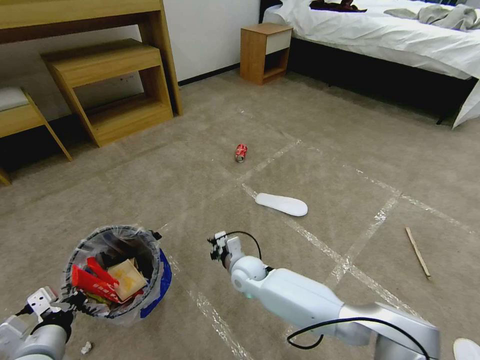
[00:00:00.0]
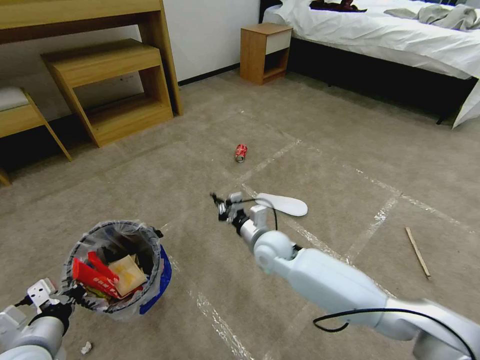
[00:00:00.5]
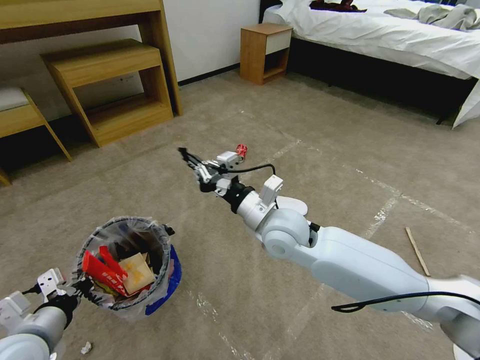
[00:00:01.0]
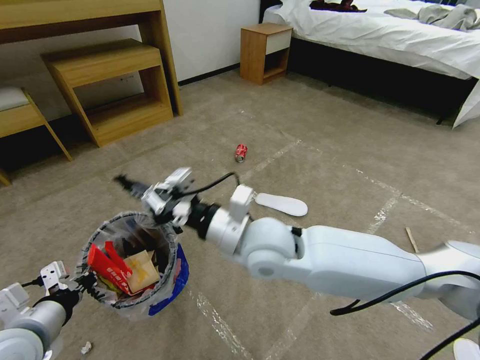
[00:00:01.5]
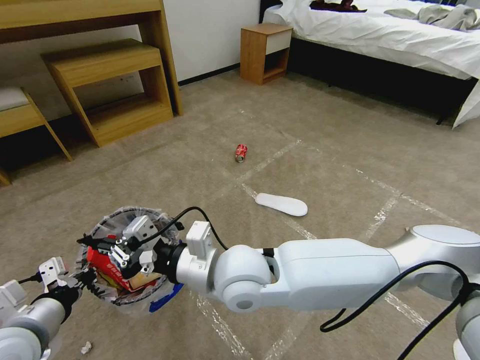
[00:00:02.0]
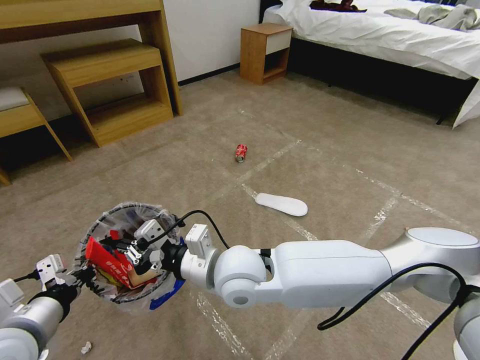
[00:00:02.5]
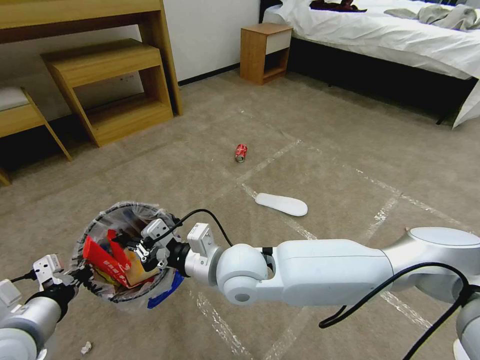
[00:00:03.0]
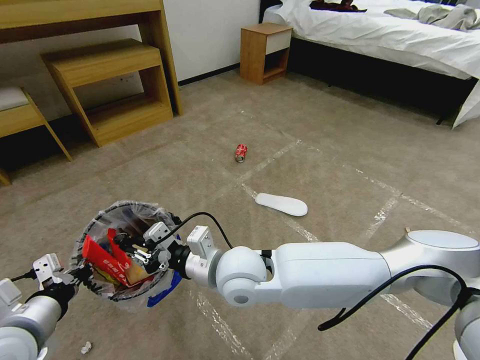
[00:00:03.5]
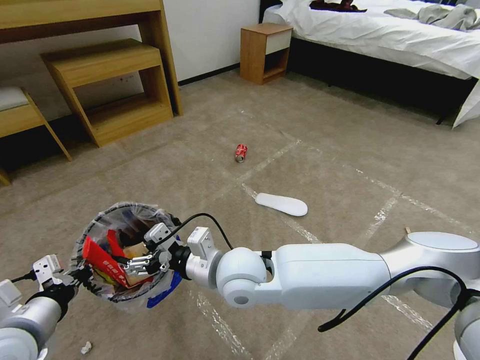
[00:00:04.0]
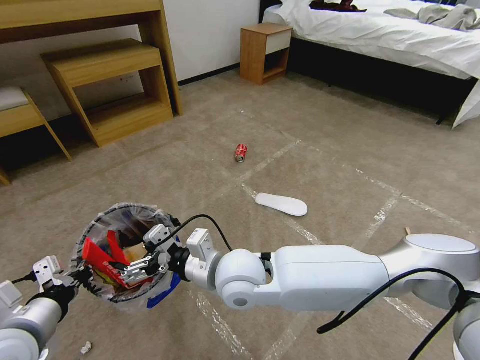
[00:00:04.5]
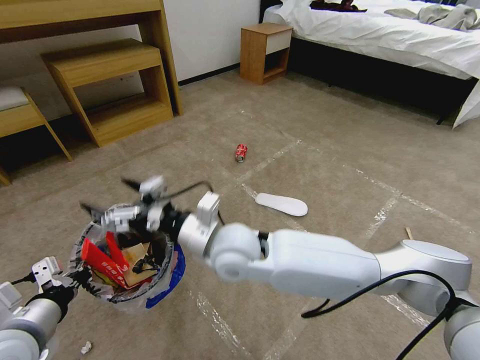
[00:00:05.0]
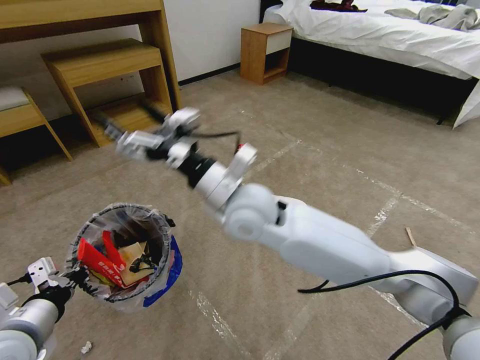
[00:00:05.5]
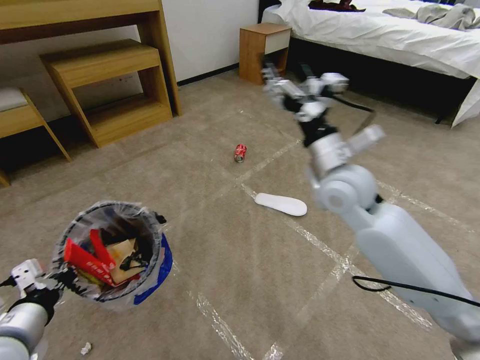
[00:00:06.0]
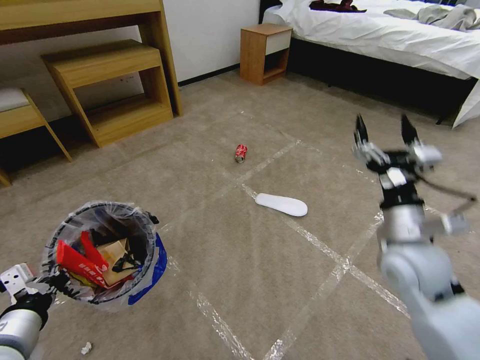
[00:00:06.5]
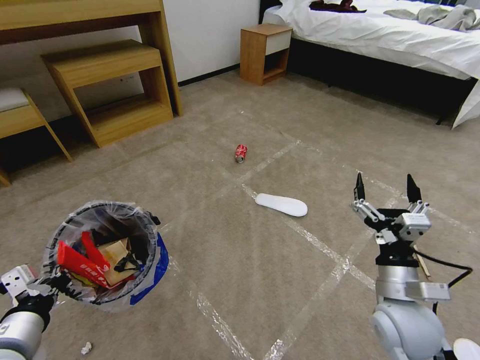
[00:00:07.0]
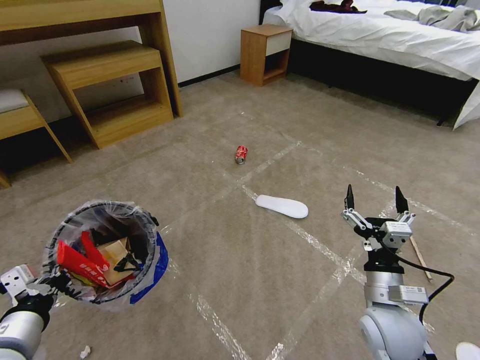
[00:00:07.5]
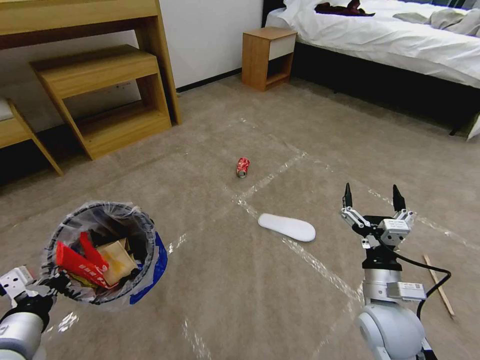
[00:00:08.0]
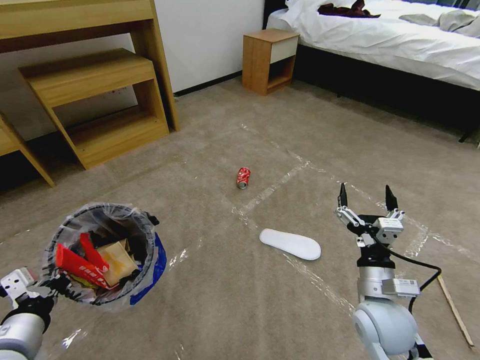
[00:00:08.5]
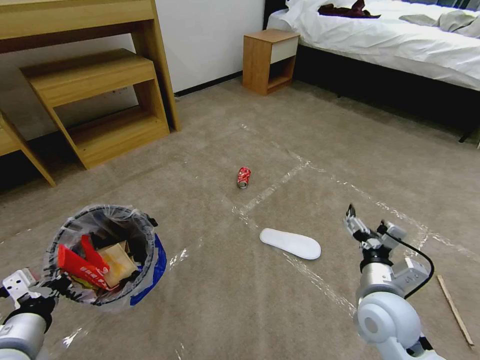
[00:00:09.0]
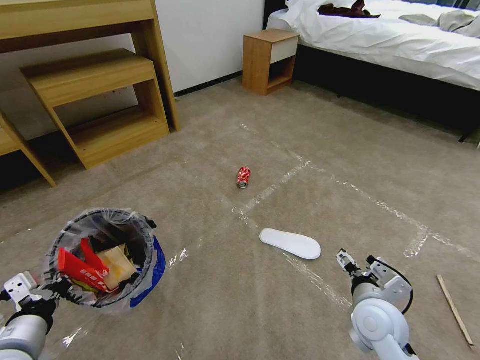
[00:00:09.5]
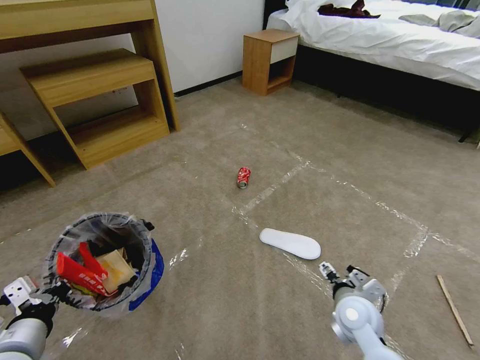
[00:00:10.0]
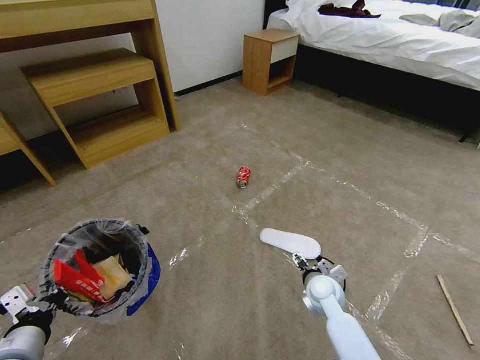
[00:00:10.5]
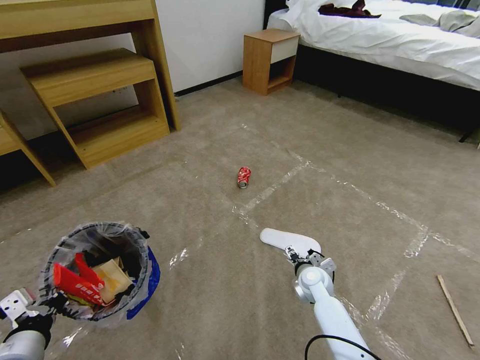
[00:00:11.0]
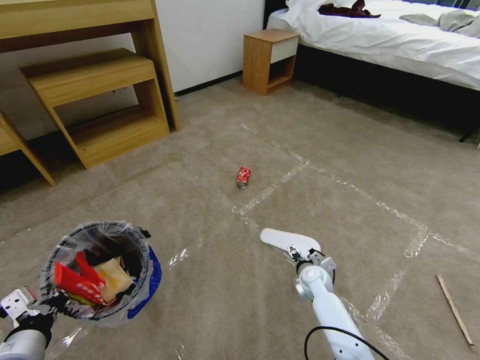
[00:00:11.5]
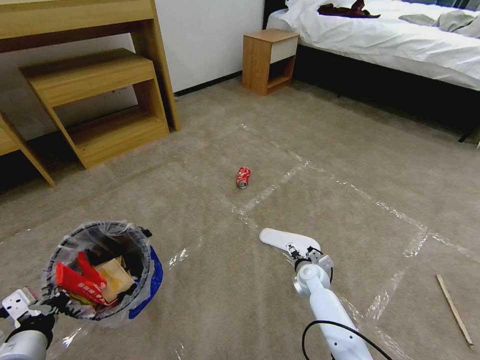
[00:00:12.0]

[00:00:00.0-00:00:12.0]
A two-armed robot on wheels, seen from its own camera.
Task of the whole recording: Pick up the trash bin and place the garbage on the floor into it.
00:00:00.0 to 00:00:02.0: The right gripper shifts approximately 30 cm upward and backward. The left gripper shifts about 10 cm upward.
00:00:02.0 to 00:00:04.0: The right gripper opens its fingers.
00:00:04.0 to 00:00:06.0: The right gripper travels to the right, forward and upward by approximately 25 cm.
00:00:06.0 to 00:00:08.0: The right gripper goes roughly 25 cm downward, backward and to the right.
00:00:08.0 to 00:00:10.0: The right gripper is displaced downward by roughly 10 cm.
00:00:10.0 to 00:00:12.0: The right gripper is displaced forward and downward by some 15 cm.

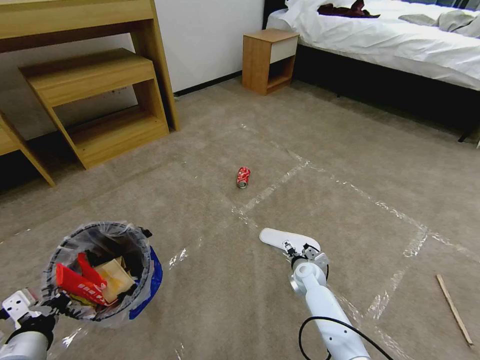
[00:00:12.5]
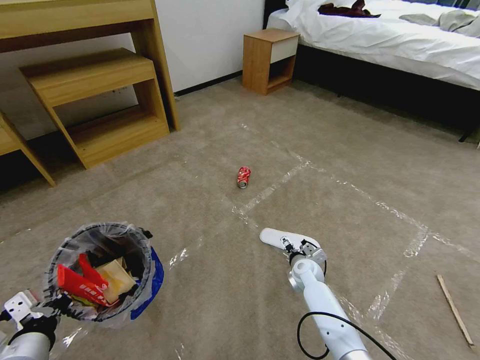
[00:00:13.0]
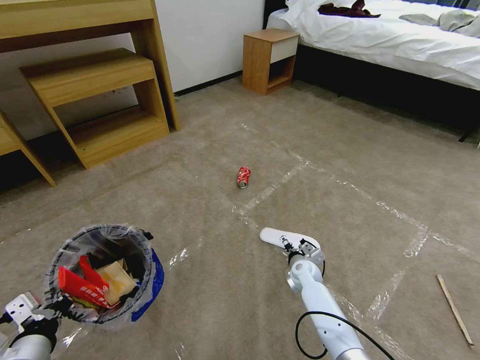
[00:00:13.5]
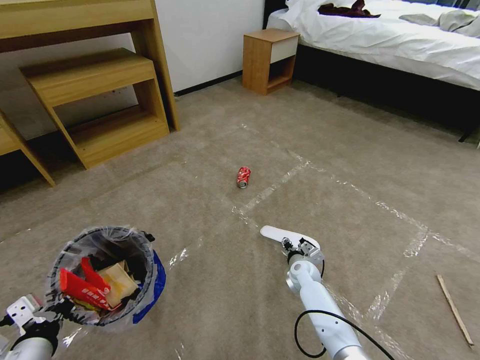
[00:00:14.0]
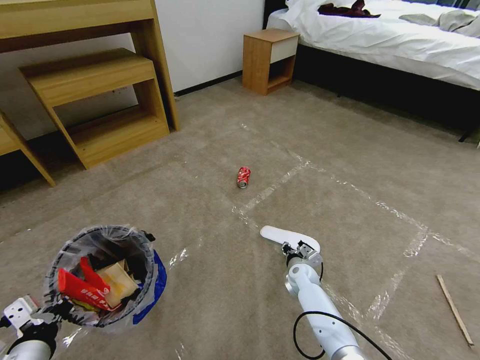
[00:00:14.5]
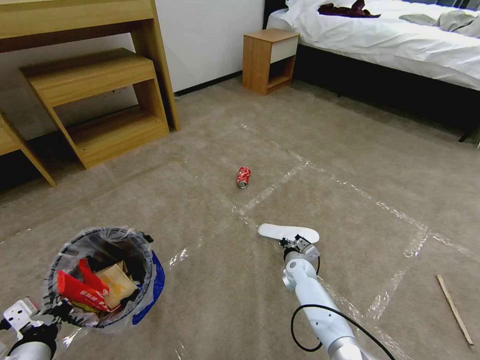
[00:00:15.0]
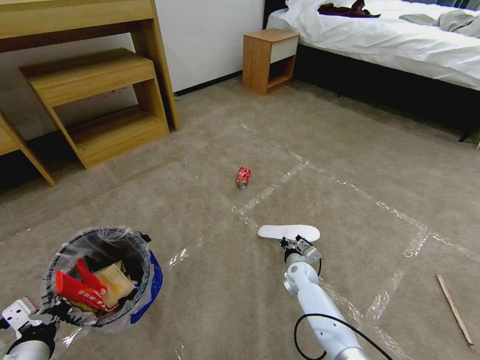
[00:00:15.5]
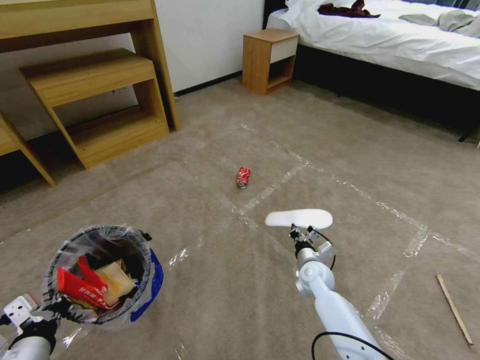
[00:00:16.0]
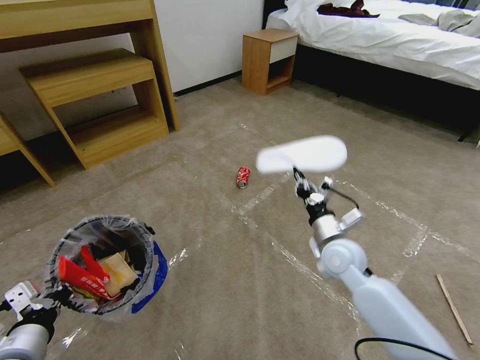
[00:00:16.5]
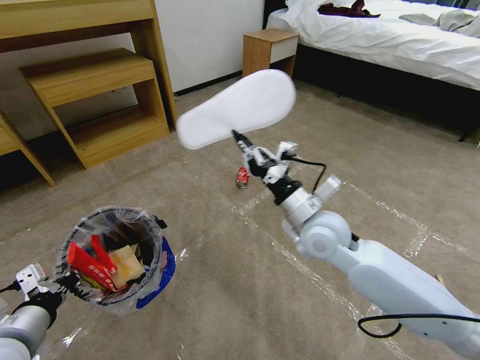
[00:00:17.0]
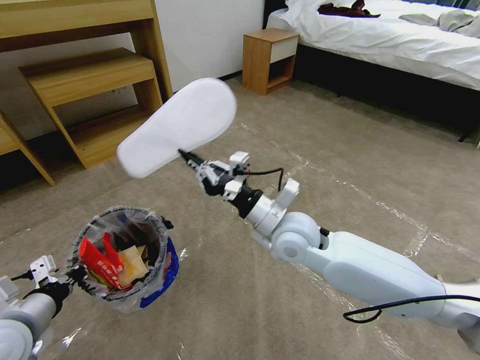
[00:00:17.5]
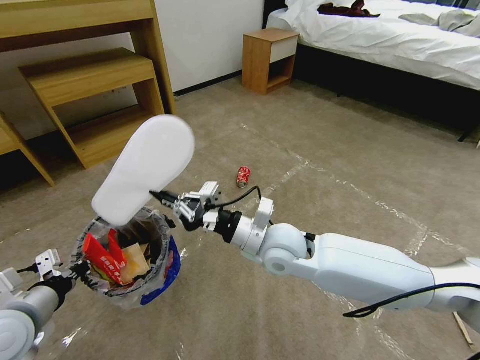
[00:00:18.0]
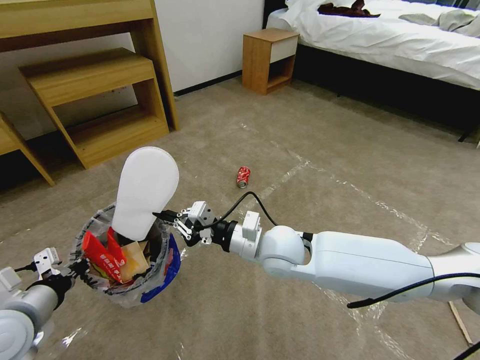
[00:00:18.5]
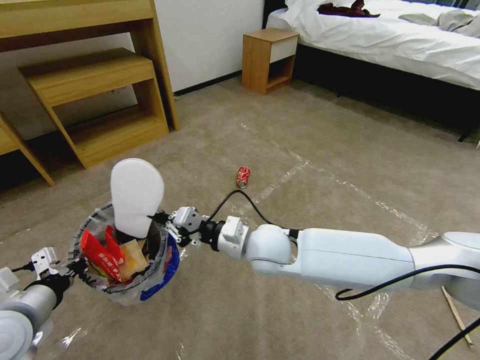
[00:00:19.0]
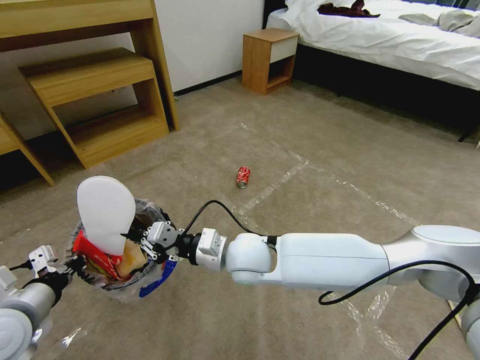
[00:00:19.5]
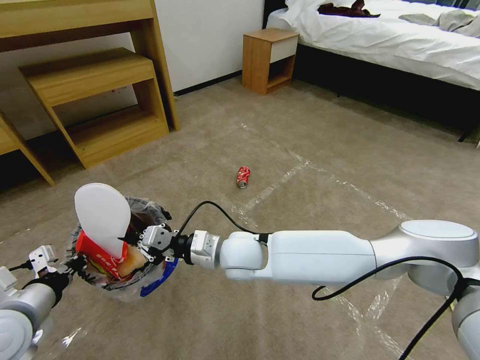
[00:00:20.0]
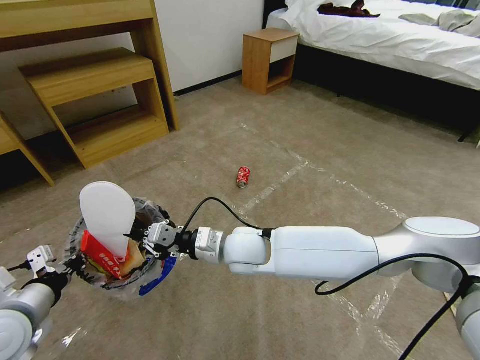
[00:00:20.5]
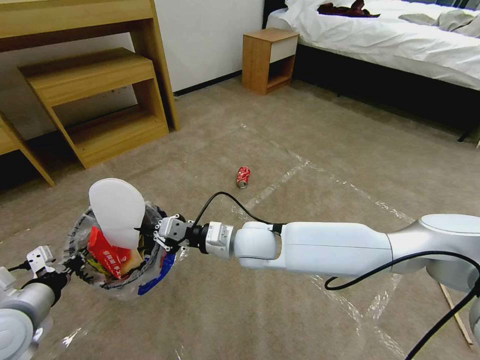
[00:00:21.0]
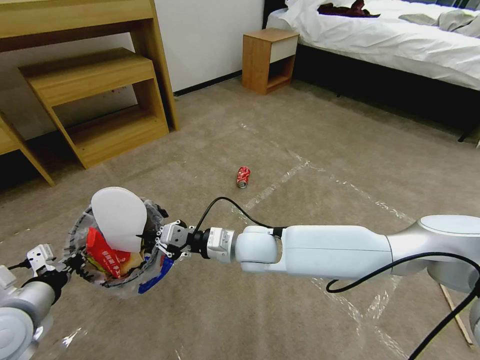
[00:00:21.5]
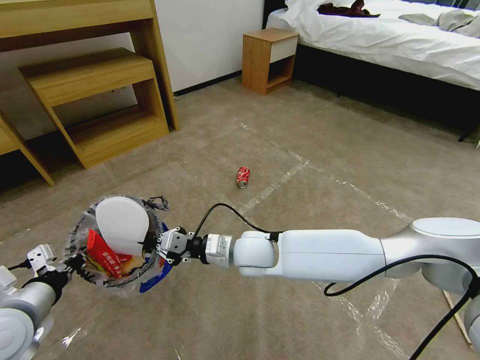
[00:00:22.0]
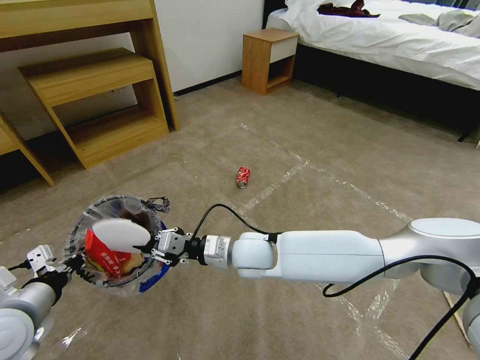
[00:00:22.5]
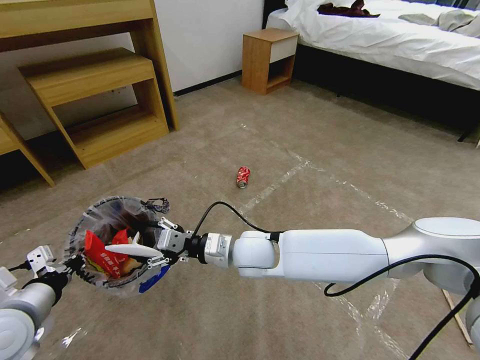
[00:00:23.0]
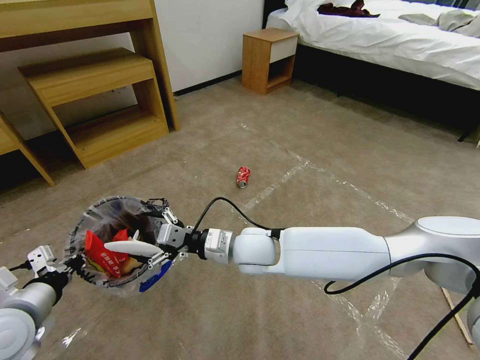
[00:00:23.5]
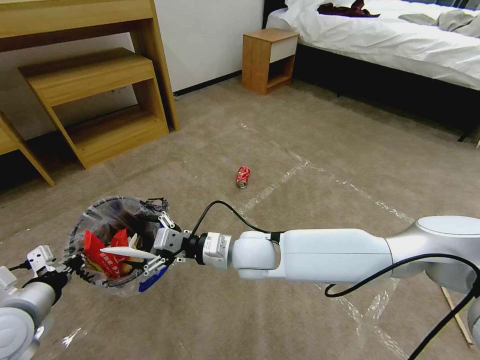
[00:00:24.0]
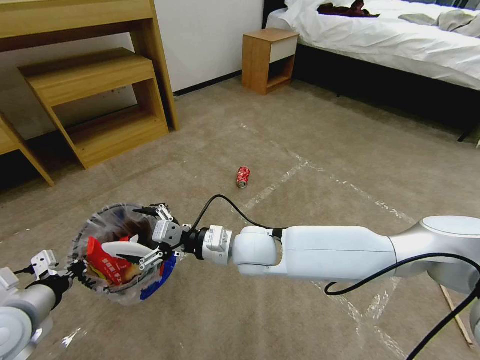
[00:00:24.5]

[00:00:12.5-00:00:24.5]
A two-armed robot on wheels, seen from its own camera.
Task of the whole recording: Pick up the trash bin and place the garbage on the floor into it.
00:00:12.5 to 00:00:14.5: The right gripper closes its fingers.
00:00:14.5 to 00:00:16.5: The right gripper shifts roughly 25 cm upward.
00:00:16.5 to 00:00:18.5: The left gripper heads forward, covering approximately 5 cm, while the right gripper heads to the left and upward, covering about 15 cm.
00:00:18.5 to 00:00:20.5: The right gripper goes roughly 5 cm to the left.
00:00:20.5 to 00:00:22.5: The grippers stay close to where they were, moving slightly.
00:00:22.5 to 00:00:24.5: The right gripper opens.

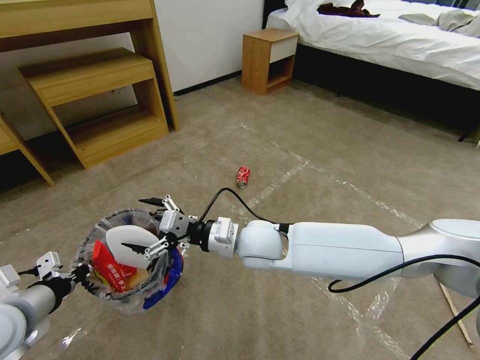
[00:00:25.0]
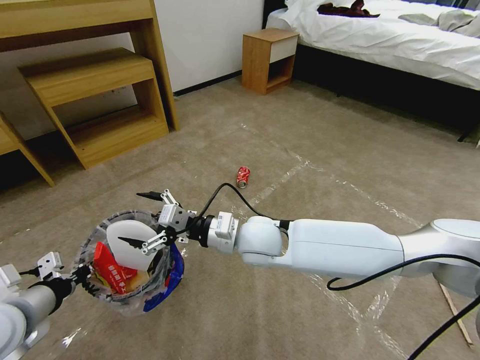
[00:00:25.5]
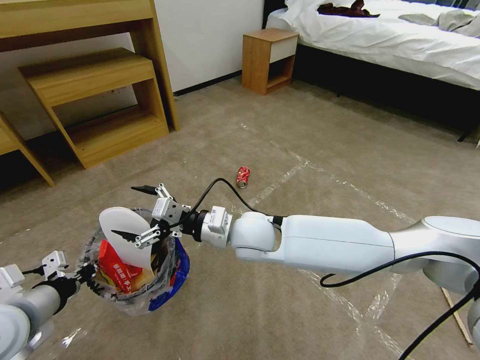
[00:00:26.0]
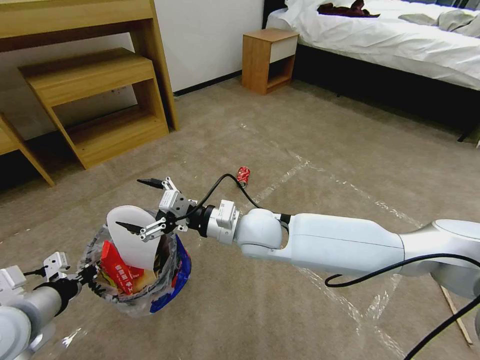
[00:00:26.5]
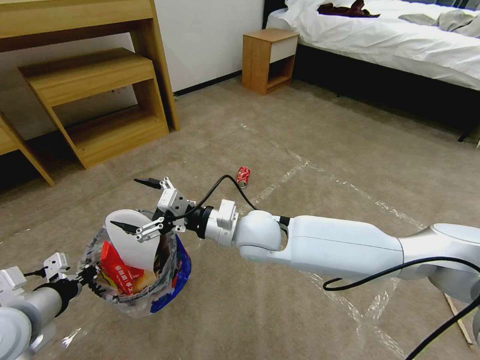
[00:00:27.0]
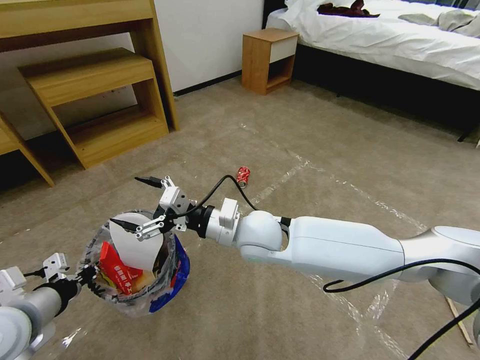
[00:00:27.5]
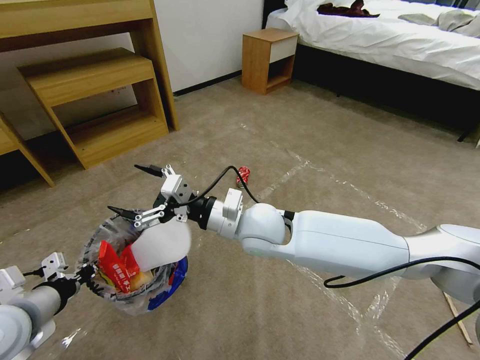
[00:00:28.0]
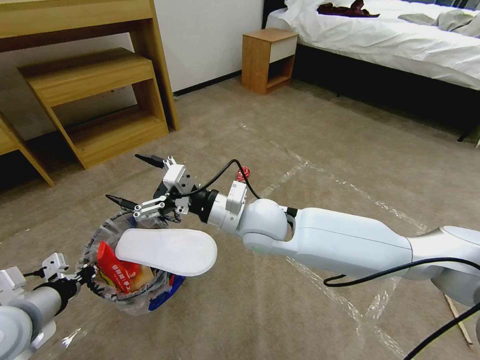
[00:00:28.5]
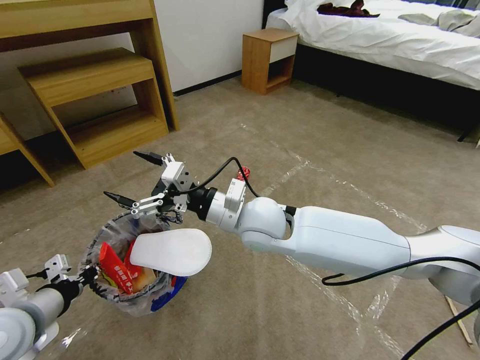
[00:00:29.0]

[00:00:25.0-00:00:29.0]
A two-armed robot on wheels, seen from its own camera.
Task of the whole recording: Pick up the trash bin and place the garbage on the floor into it.
00:00:25.0 to 00:00:29.0: The grippers move only a little.
